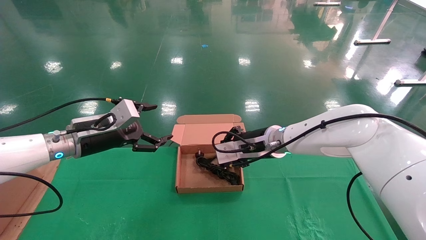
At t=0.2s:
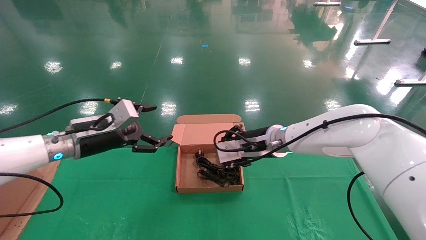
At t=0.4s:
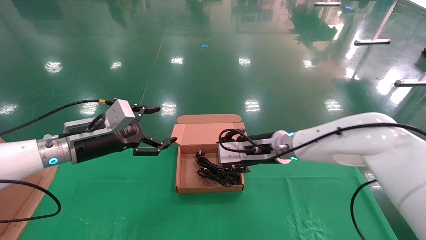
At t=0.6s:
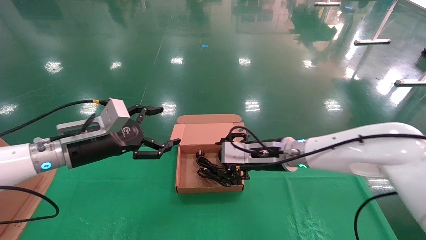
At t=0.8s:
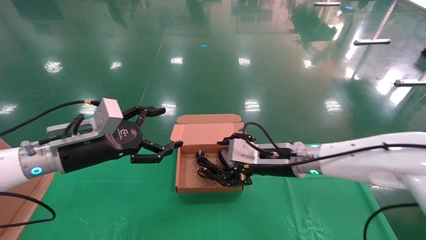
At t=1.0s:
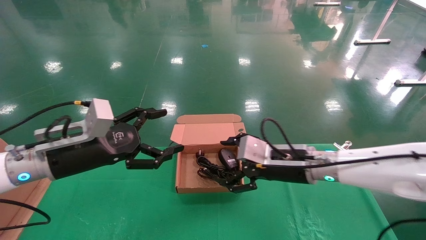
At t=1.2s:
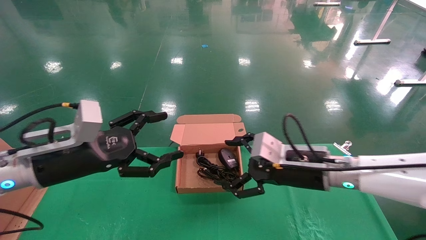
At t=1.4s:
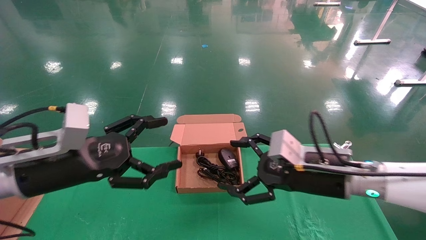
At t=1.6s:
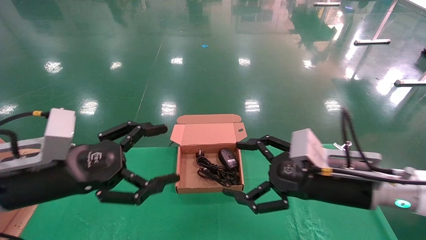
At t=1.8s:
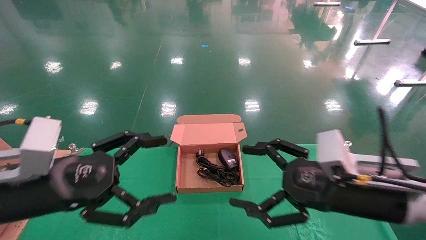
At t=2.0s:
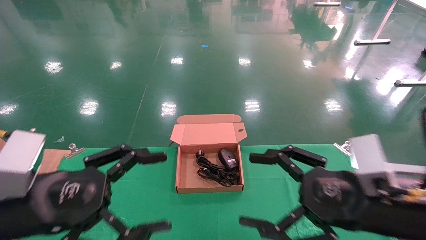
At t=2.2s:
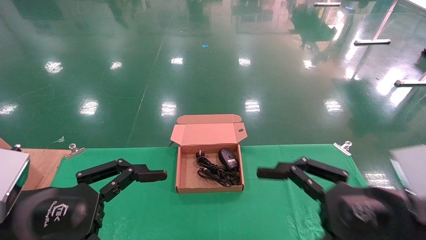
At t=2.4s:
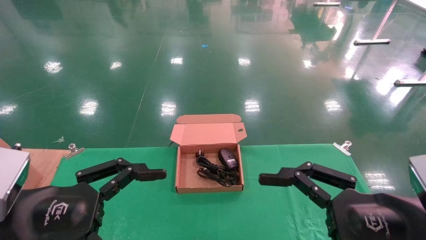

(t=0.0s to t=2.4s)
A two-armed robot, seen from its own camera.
t=0.0s - t=1.2s: The left gripper goes some 10 cm backward. The right gripper heads backward and to the right, covering roughly 15 cm, and opens up.
t=1.2s - t=2.4s: The right gripper shifts about 20 cm backward and to the right. The left gripper is displaced backward by some 15 cm.
